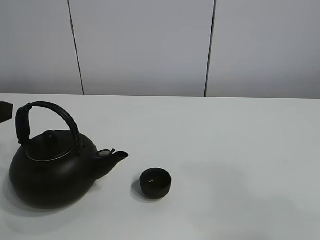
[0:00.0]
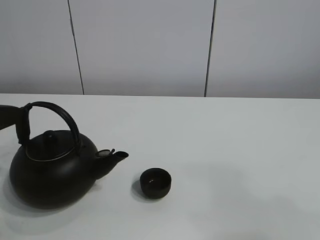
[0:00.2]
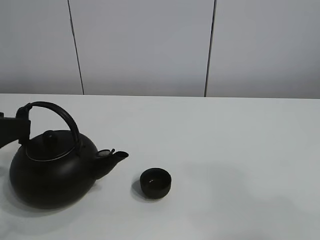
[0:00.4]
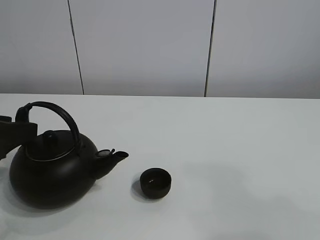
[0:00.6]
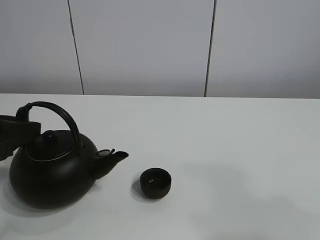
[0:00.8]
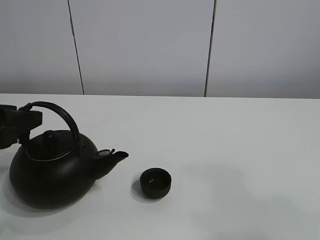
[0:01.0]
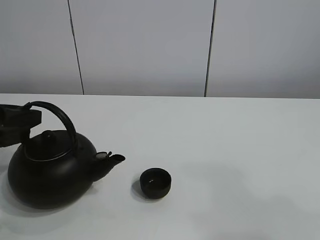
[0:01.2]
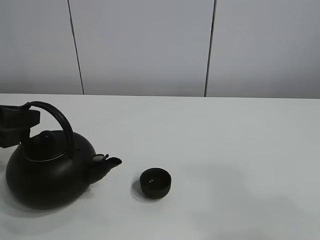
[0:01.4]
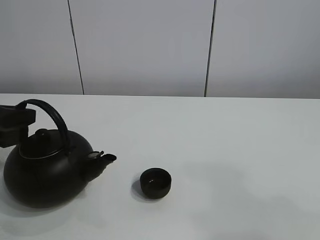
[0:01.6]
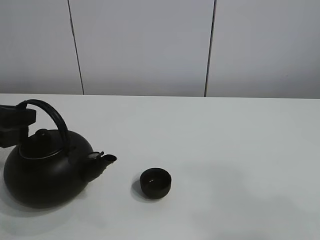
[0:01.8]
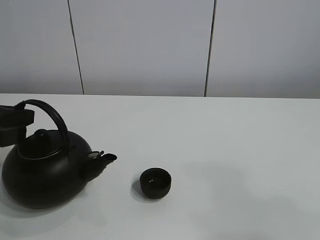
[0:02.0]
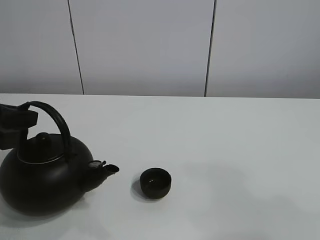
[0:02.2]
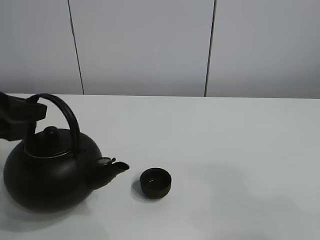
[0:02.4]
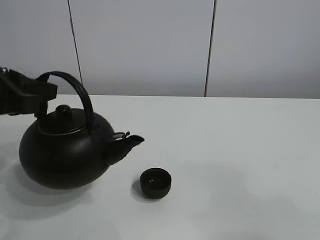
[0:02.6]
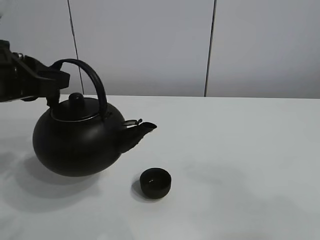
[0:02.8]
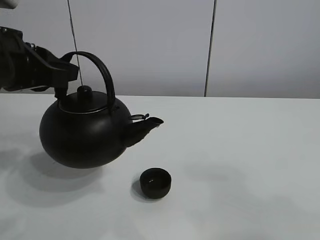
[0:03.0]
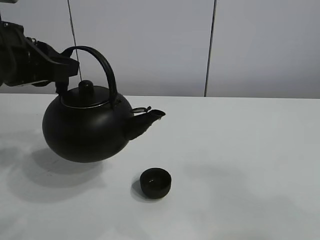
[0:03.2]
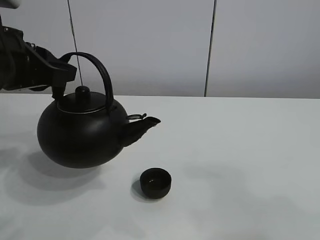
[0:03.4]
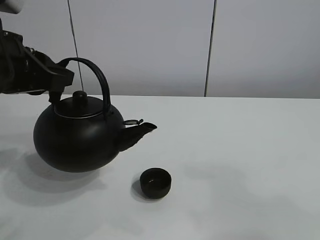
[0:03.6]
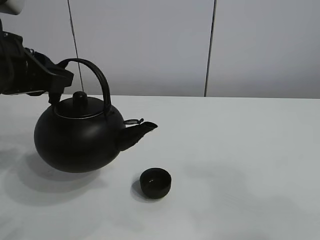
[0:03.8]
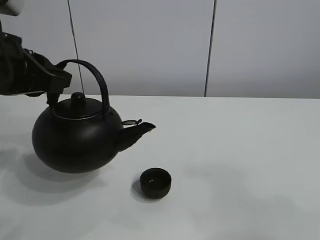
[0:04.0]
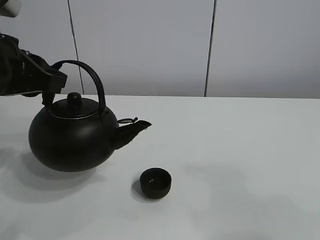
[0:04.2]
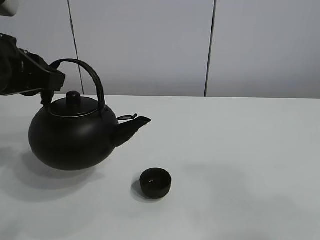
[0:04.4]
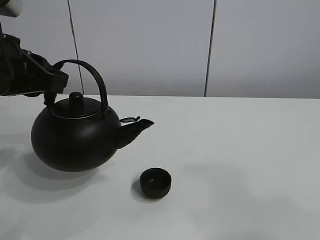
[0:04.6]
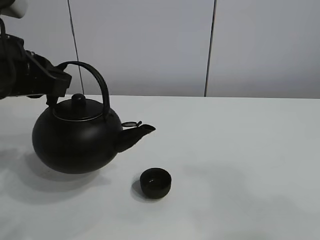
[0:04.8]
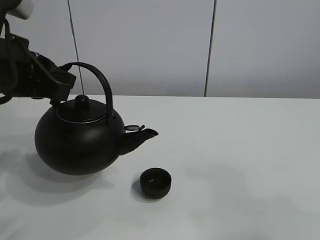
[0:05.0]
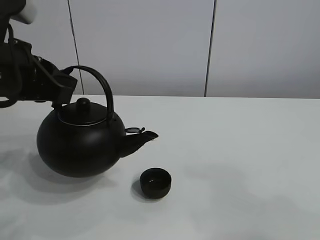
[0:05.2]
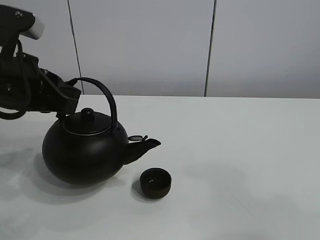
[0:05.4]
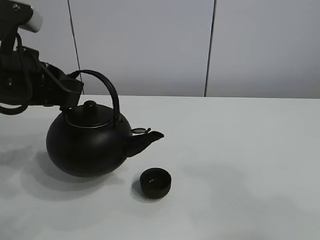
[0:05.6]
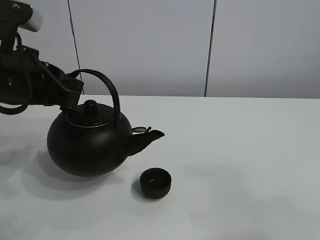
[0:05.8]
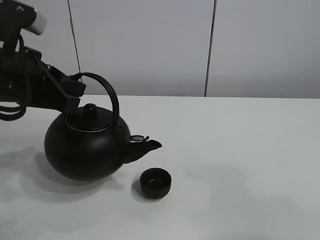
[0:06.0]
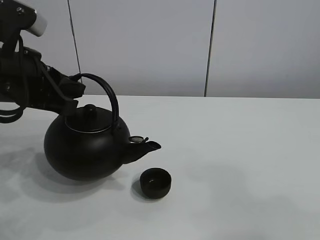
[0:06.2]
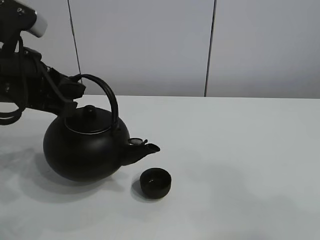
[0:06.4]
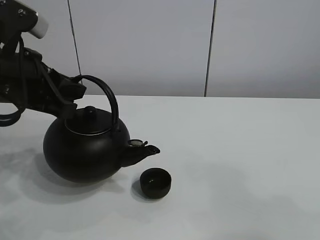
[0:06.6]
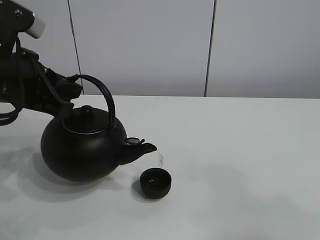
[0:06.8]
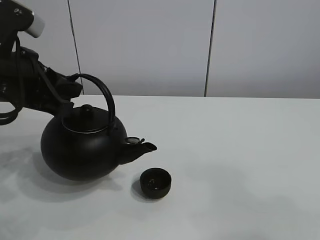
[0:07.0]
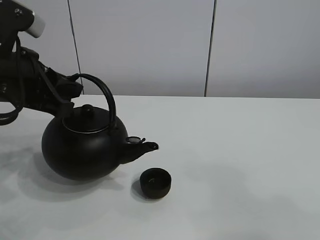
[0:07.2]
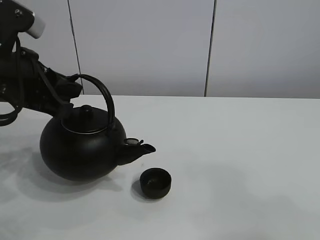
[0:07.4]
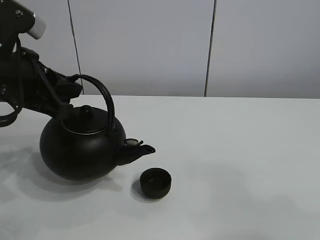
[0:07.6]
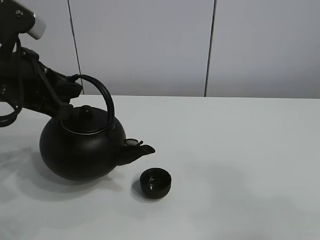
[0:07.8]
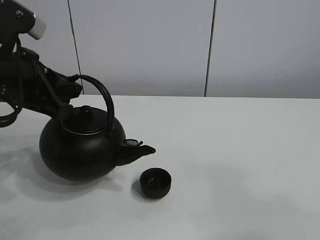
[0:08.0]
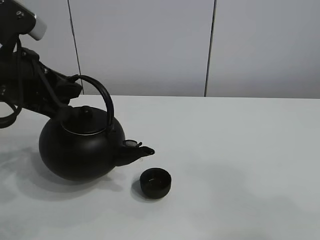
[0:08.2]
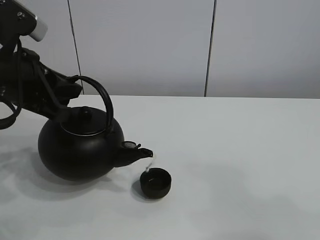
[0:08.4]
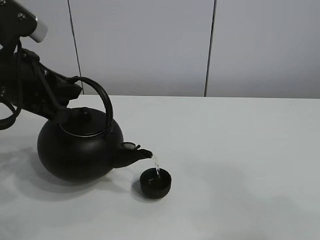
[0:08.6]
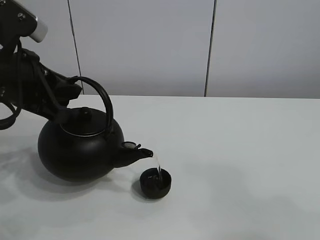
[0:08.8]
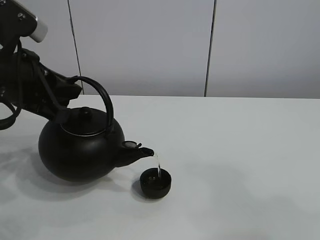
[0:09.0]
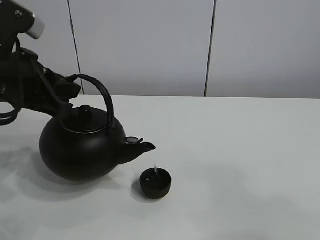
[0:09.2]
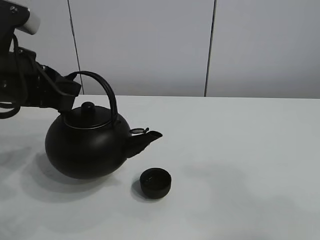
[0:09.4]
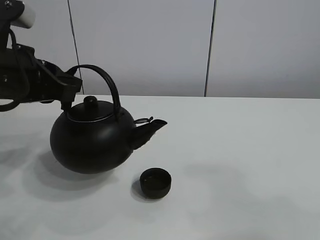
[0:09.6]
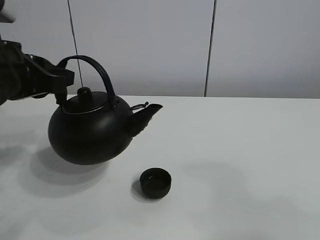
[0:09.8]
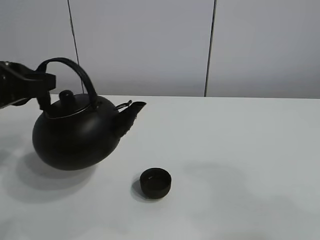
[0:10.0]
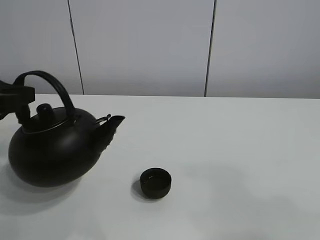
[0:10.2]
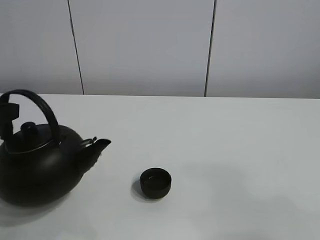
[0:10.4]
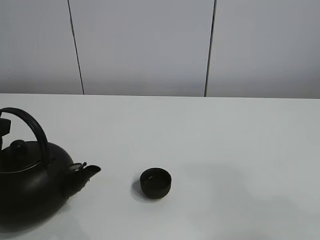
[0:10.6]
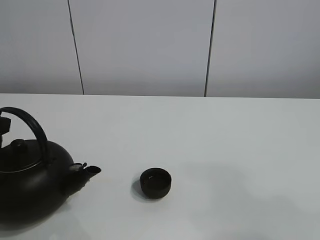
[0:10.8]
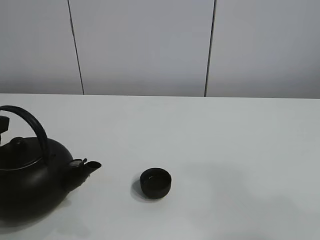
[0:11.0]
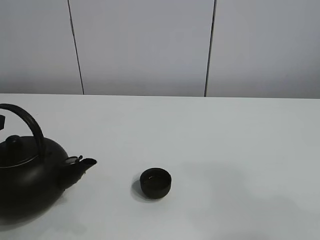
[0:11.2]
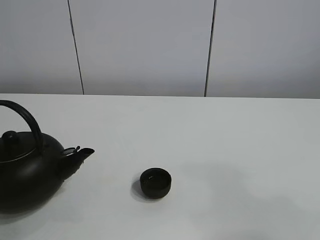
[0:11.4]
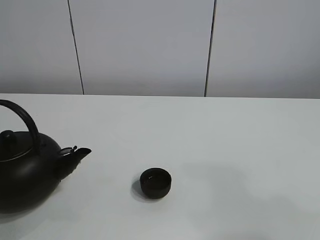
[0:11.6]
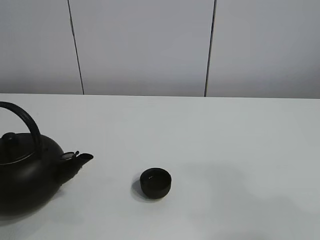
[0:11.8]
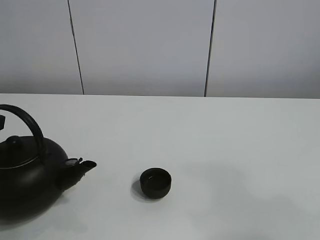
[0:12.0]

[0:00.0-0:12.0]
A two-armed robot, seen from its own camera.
Task of the whole recording: pour tea into the teacup.
Step, 1.6 to 9.2 s: Pour tea into the teacup with the left gripper.
0.0 to 1.6 s: The left gripper moves downward and forward, some 5 cm, and closes.
1.6 to 3.0 s: The left gripper is displaced upward and to the right by roughly 10 cm.
3.0 to 7.6 s: The grippers stay close to where they were, moving slightly.
7.6 to 9.0 s: Both grippers stay put.
9.0 to 10.4 s: The left gripper goes roughly 10 cm to the left and backward.
10.4 to 12.0 s: There are only small adjustments of the grippers.

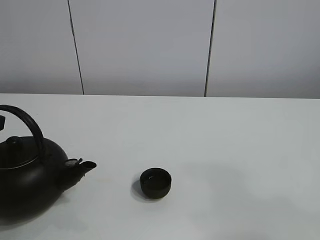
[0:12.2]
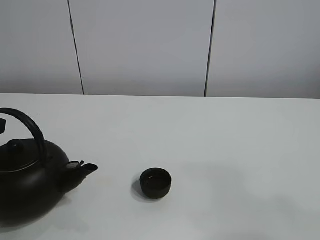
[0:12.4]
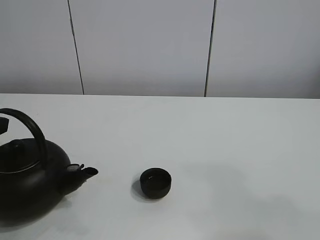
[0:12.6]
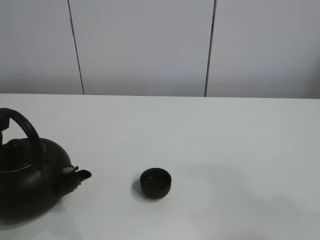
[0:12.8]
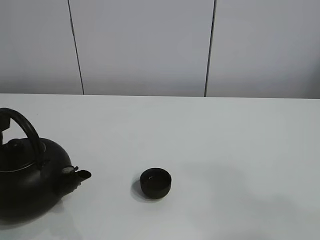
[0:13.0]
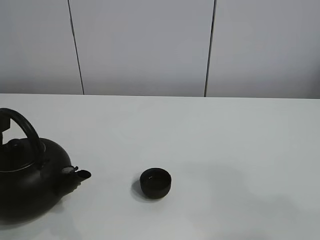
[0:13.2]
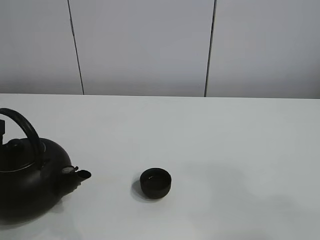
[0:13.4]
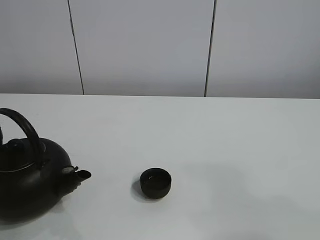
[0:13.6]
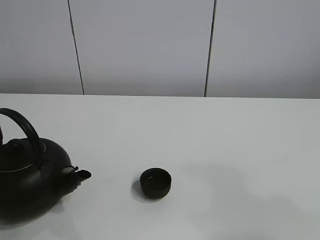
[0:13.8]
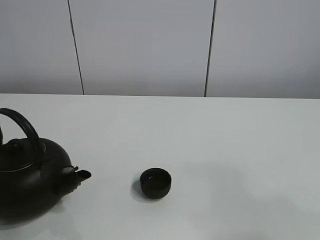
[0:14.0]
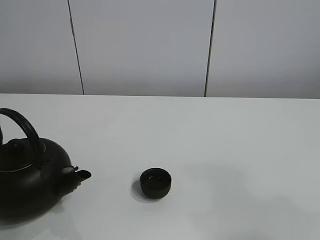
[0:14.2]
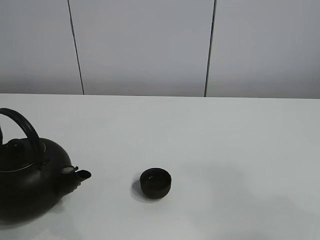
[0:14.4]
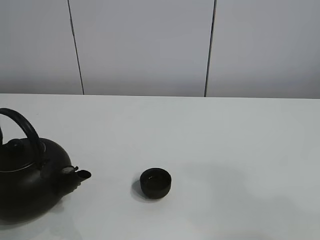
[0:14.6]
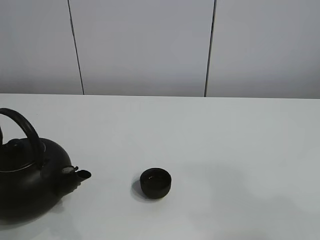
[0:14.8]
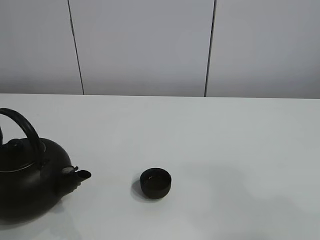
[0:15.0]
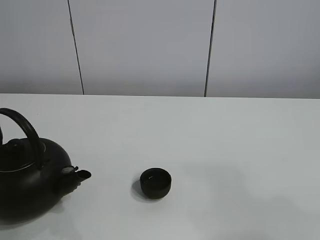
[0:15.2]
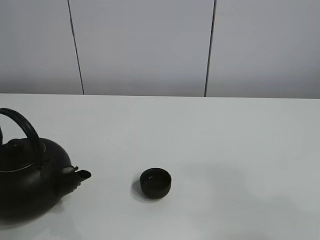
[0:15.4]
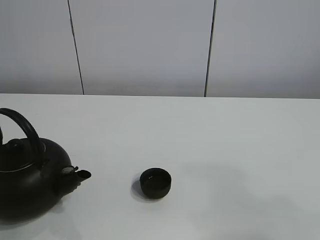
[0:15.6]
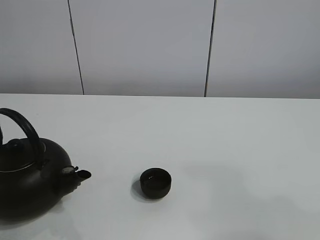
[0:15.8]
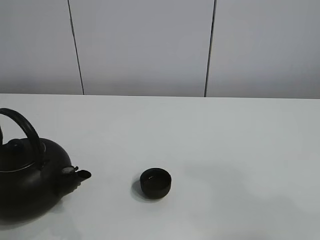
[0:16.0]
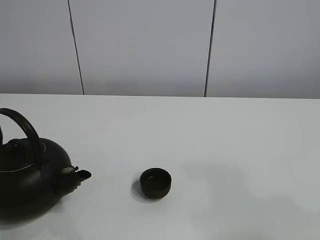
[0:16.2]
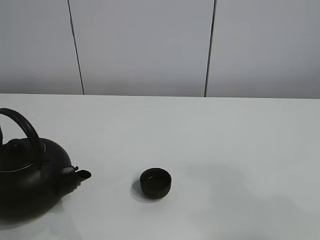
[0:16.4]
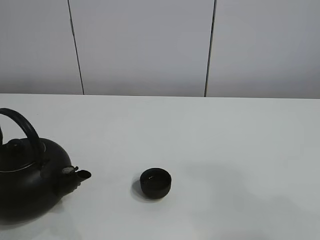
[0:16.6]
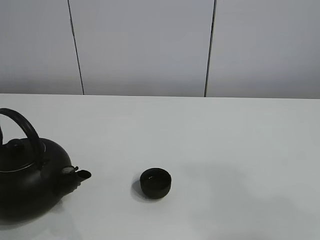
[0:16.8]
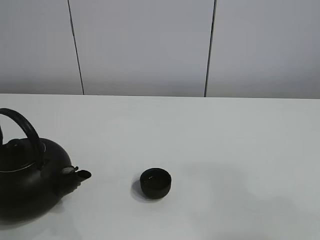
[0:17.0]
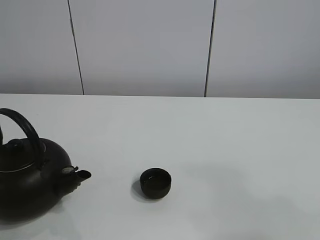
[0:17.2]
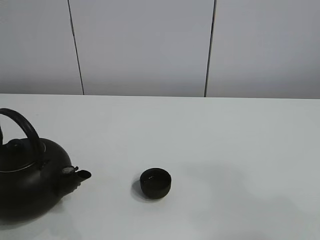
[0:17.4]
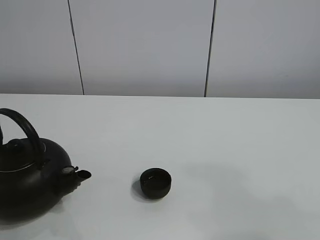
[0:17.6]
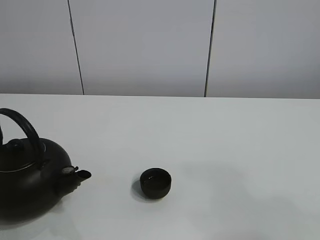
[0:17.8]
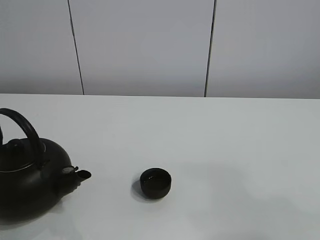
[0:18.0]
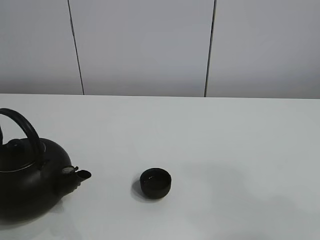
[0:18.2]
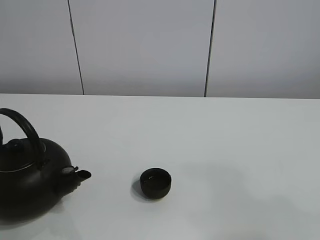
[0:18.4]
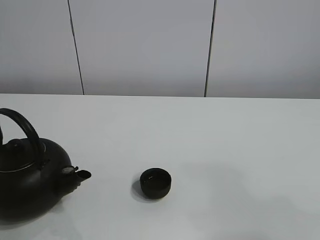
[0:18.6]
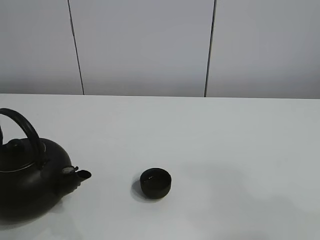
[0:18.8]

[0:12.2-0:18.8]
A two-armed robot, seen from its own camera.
Task of the whole recording: pour tea into the teacup.
12.2 to 13.8 s: The left gripper opens up.

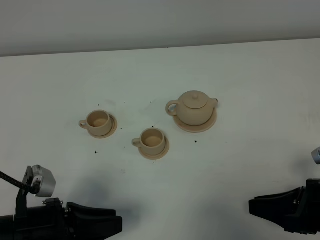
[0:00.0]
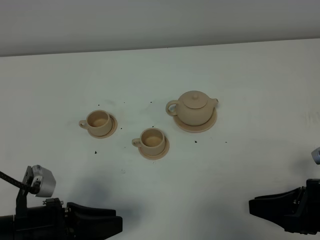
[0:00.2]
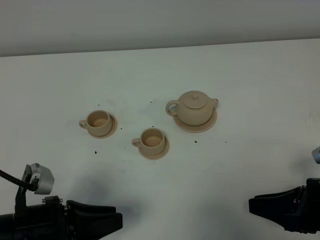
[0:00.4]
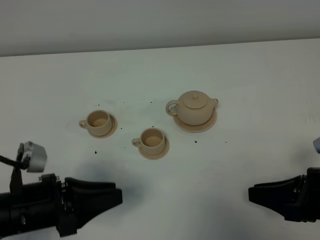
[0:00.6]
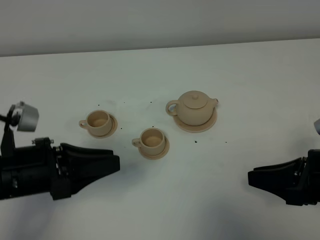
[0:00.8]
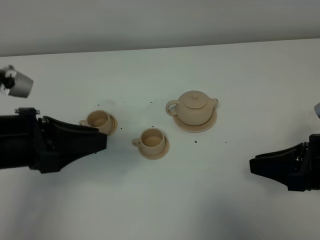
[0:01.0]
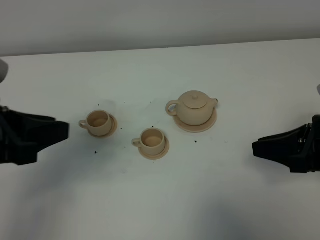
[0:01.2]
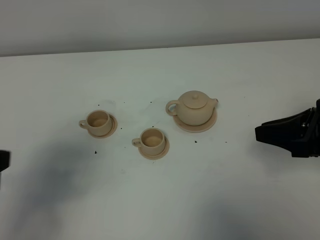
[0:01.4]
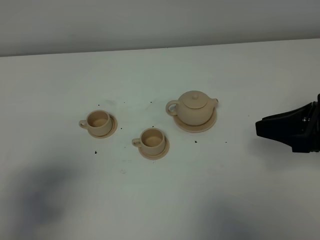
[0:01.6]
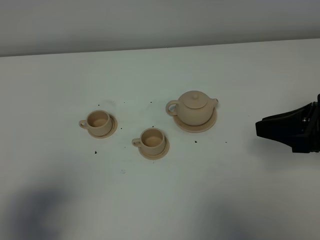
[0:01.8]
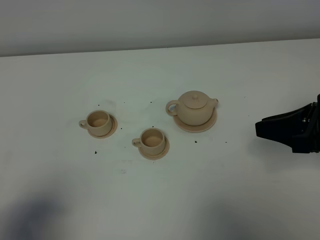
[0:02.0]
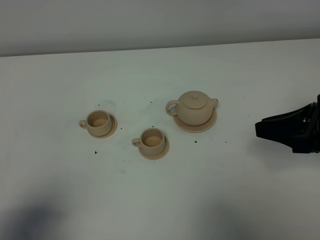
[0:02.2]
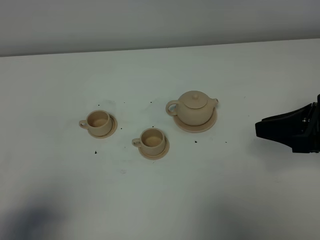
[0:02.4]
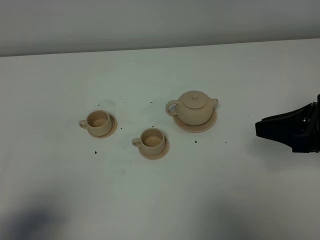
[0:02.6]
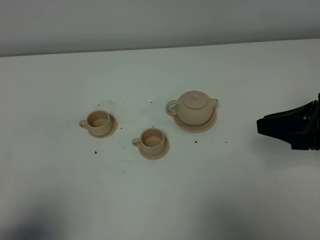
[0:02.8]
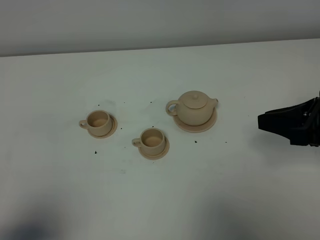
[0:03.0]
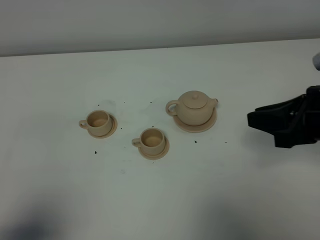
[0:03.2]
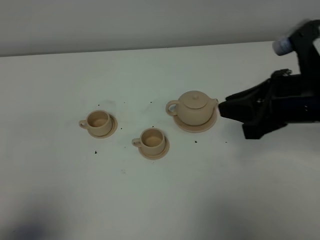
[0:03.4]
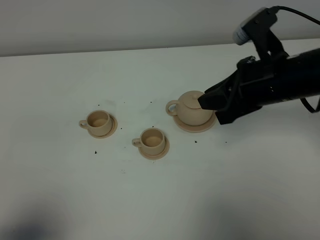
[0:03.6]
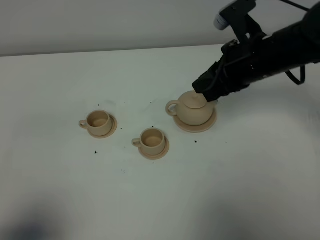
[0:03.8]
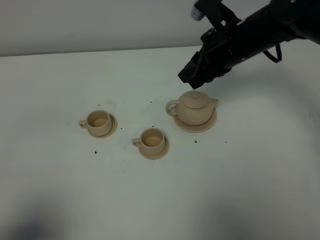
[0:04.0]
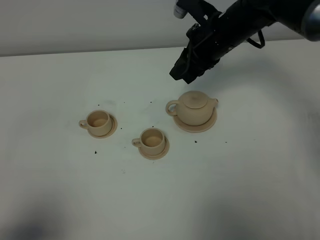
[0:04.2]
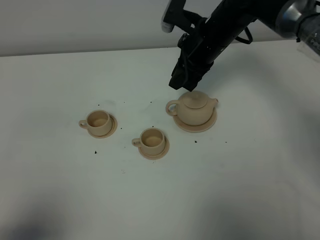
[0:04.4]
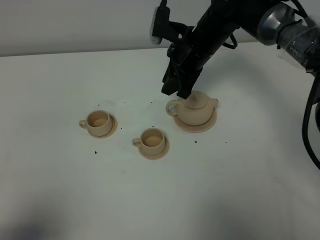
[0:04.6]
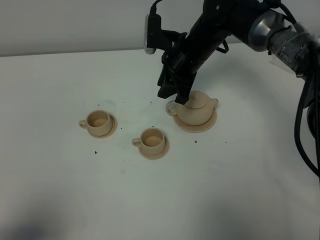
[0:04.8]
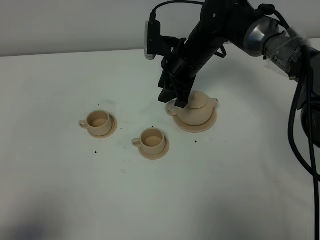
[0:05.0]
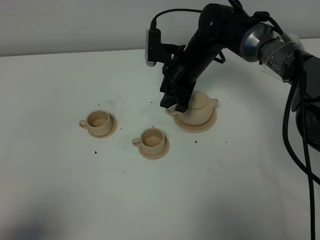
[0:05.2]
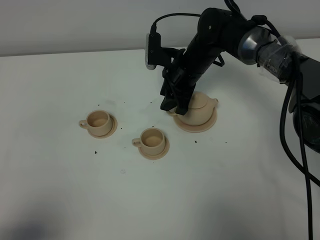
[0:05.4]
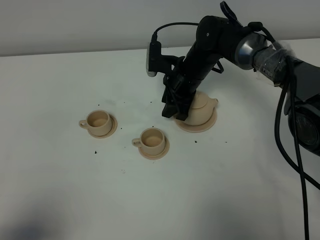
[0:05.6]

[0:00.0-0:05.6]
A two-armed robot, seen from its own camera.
Task of the whole recording: grasp the brown teapot and pour the tea into the two brown teacups one by one, put the brown teapot back in its original place.
0.0 to 1.4 s: The left gripper shifts roughly 20 cm upward, while the right gripper moves upward and forward, about 10 cm.
1.4 to 2.8 s: The left gripper shifts approximately 15 cm backward and downward.
2.8 to 4.2 s: The right gripper moves forward and to the left, about 25 cm.
4.2 to 5.6 s: The right gripper is displaced downward and to the left by roughly 10 cm, and opens.
